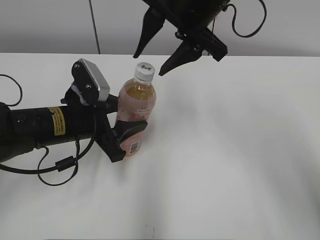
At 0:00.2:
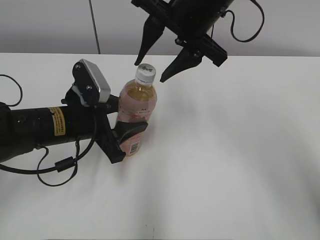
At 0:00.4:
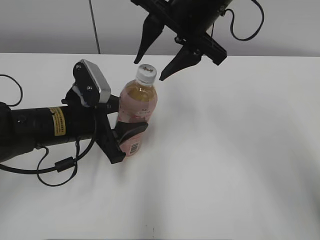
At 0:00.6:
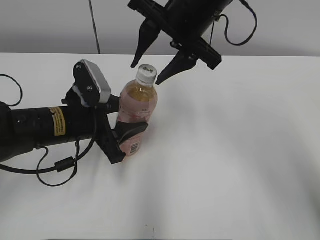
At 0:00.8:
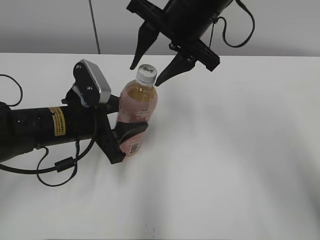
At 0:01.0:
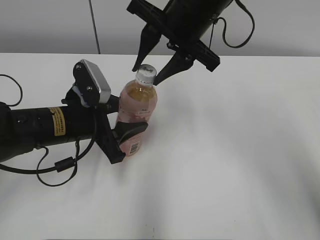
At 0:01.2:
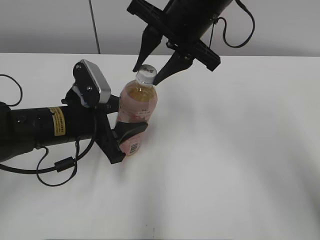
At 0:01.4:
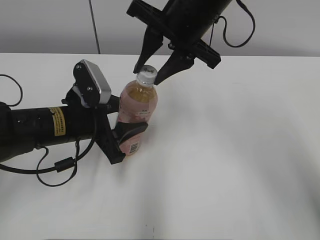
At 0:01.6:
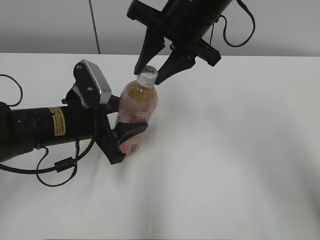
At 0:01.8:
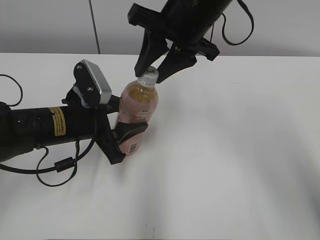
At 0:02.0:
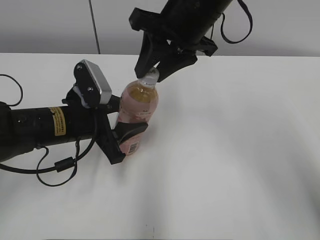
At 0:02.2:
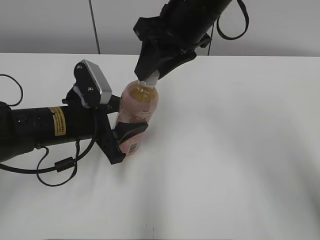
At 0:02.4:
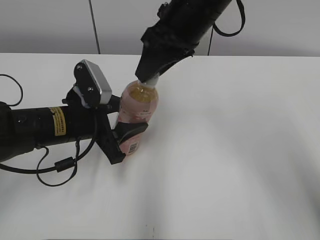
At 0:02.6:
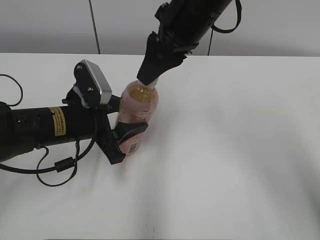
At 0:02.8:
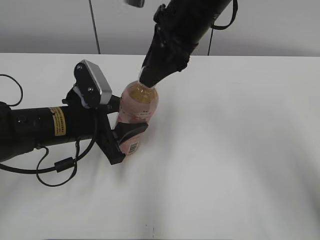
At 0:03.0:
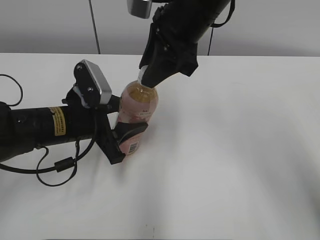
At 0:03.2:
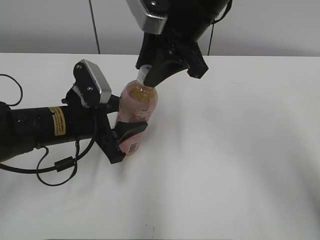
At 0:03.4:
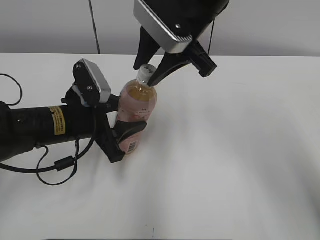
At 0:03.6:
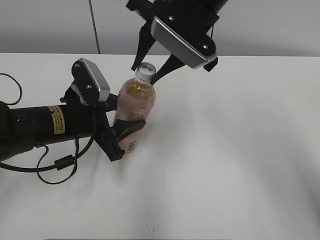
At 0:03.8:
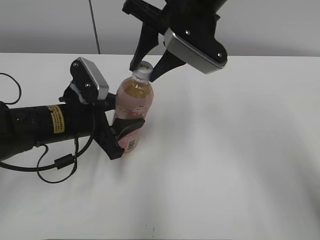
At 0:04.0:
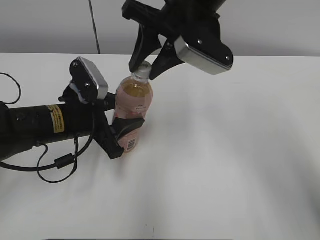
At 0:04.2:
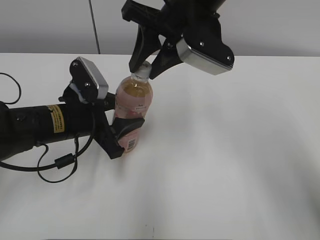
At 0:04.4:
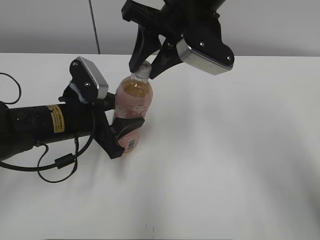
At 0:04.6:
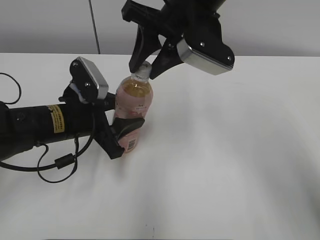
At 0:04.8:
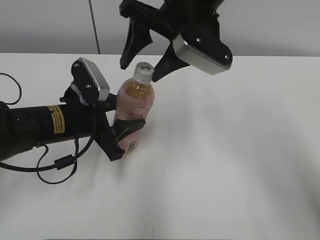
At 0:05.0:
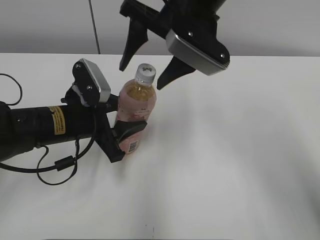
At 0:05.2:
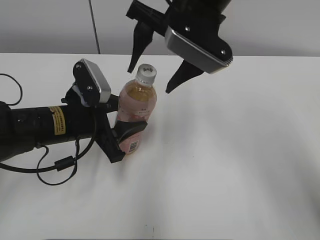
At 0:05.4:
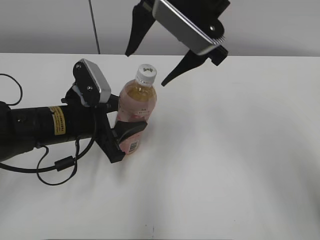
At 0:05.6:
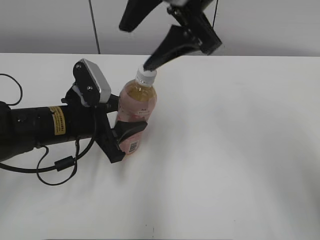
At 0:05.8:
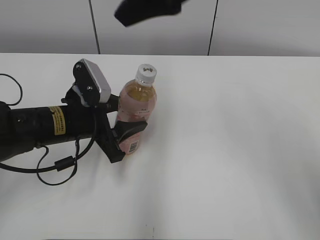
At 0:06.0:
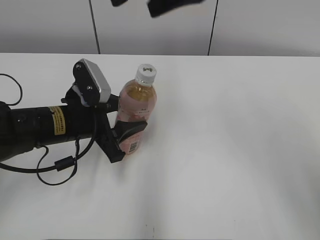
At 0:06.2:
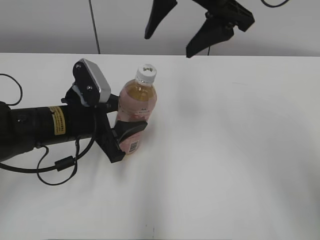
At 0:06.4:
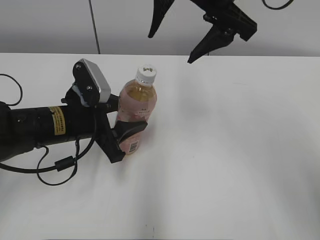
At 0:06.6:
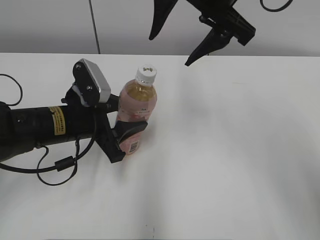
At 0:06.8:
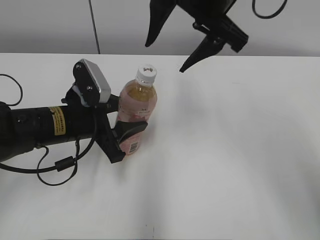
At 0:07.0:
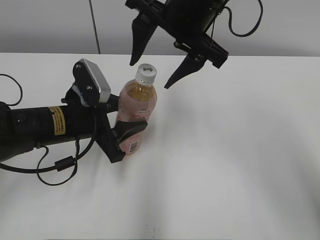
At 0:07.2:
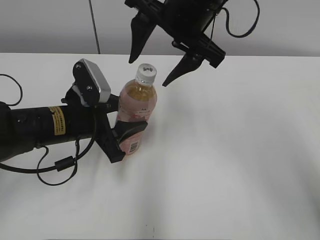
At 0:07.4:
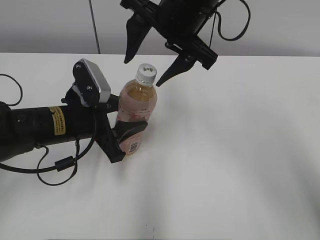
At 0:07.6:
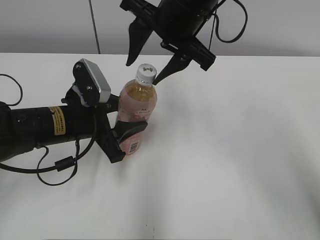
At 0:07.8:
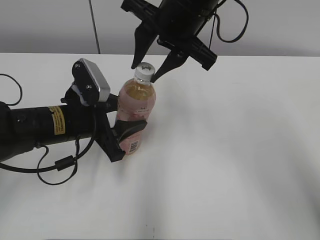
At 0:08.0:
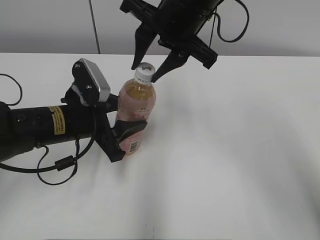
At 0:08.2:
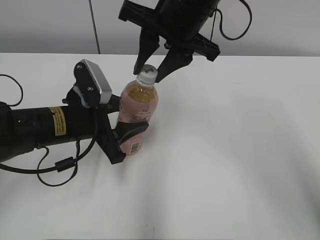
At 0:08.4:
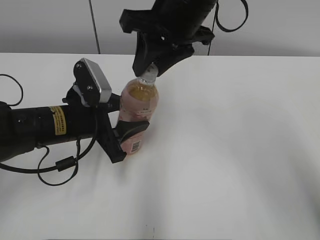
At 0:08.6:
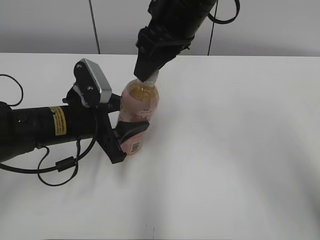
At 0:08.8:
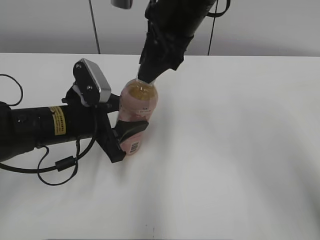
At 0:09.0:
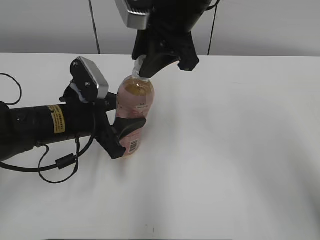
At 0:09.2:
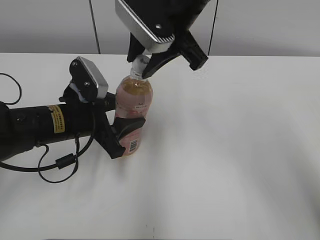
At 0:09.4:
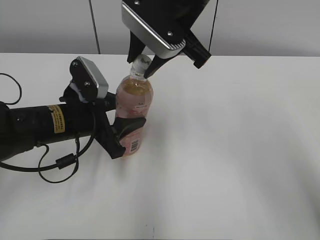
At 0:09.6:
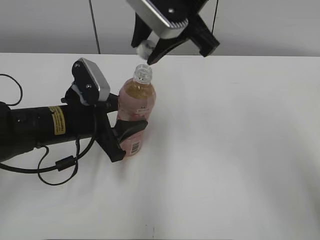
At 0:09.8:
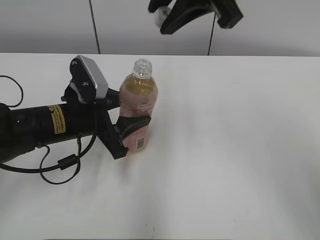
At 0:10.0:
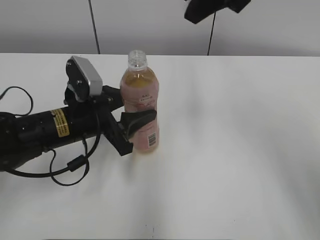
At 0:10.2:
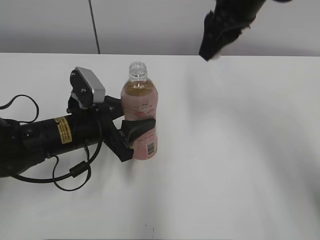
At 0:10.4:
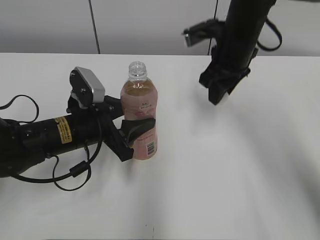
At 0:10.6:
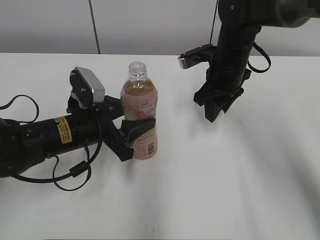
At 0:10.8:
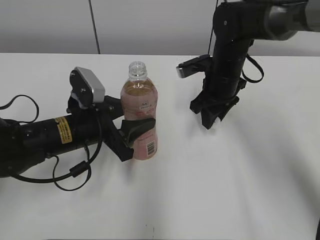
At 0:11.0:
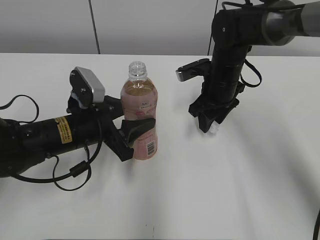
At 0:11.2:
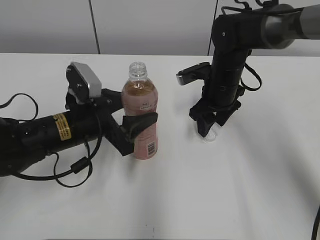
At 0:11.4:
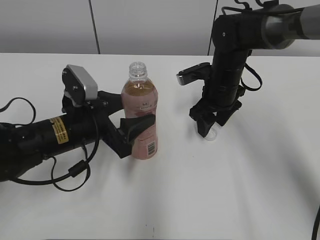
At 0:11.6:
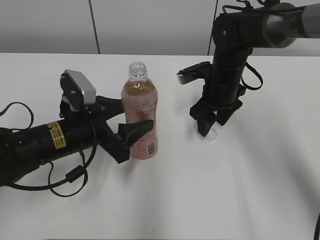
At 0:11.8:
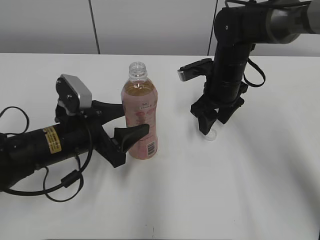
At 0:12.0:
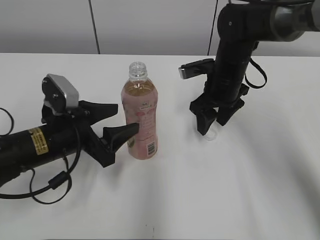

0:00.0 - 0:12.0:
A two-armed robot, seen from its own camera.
Step, 0:09.6 - 0:11.0: Place the bottle cap on the right.
Step, 0:11.2 - 0:11.4: Place the Peach Oolong Tea with the left hand.
0:00.0 - 0:01.6: The grippers make only small movements.
0:04.4 - 0:06.0: The right gripper goes about 10 cm upward, and opens its fingers.
0:06.0 - 0:07.6: The right gripper moves downward, approximately 10 cm, and closes.
0:07.6 - 0:09.0: The right gripper closes its fingers.
0:09.0 - 0:10.4: The right gripper goes some 15 cm to the right, downward and forward.
0:10.4 - 0:12.0: The right gripper moves downward, some 10 cm, and opens its fingers.

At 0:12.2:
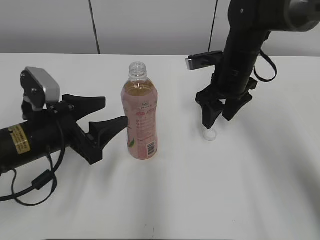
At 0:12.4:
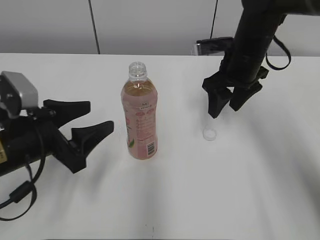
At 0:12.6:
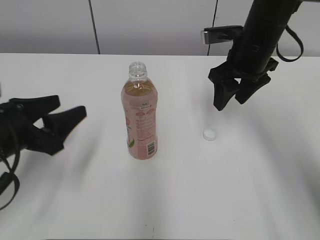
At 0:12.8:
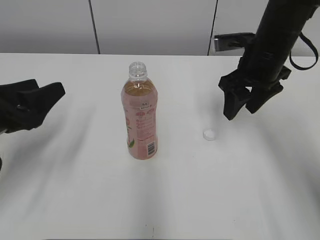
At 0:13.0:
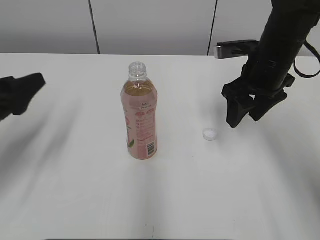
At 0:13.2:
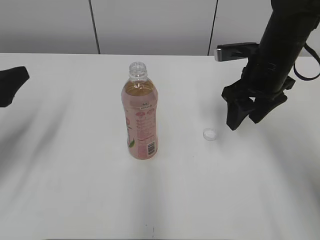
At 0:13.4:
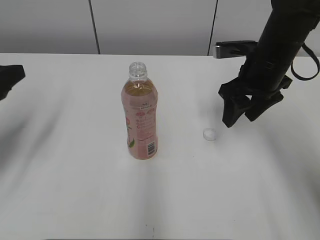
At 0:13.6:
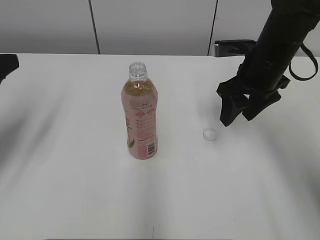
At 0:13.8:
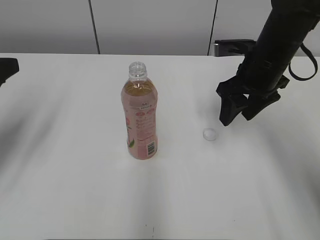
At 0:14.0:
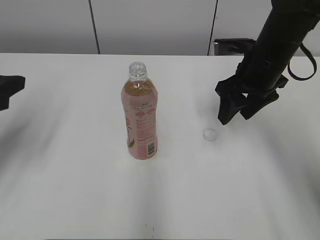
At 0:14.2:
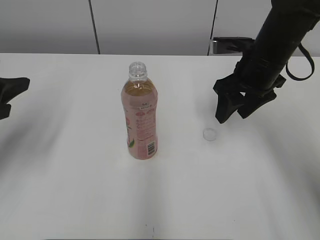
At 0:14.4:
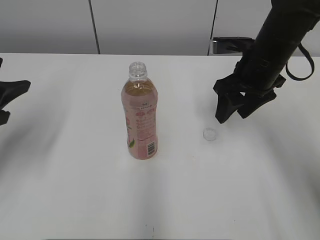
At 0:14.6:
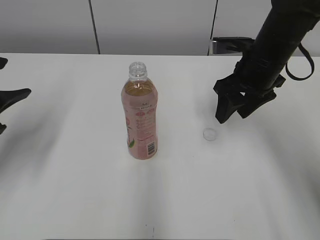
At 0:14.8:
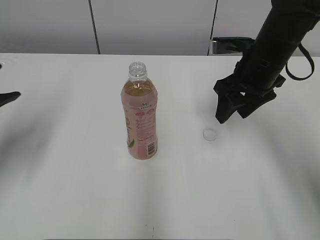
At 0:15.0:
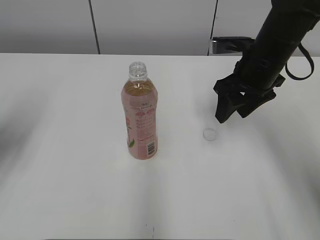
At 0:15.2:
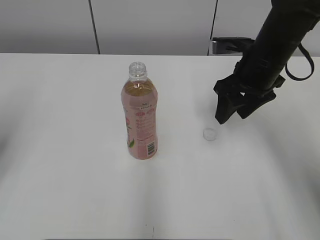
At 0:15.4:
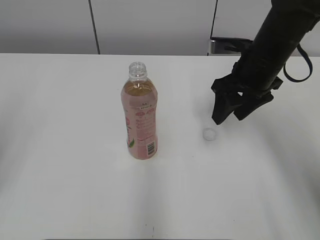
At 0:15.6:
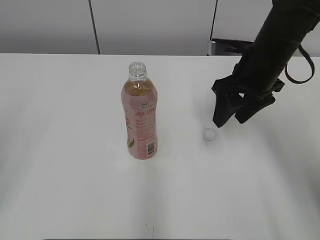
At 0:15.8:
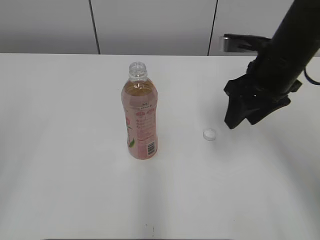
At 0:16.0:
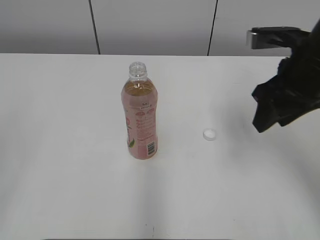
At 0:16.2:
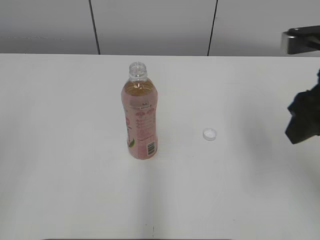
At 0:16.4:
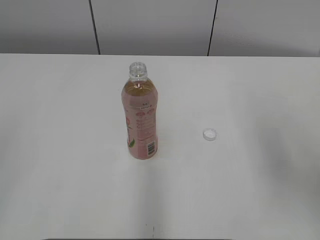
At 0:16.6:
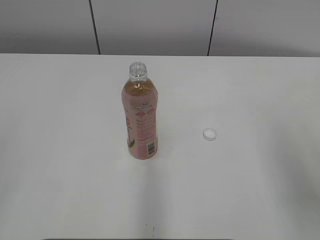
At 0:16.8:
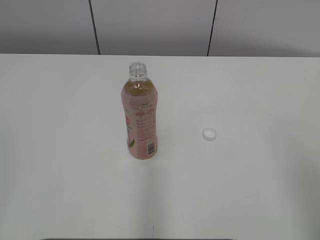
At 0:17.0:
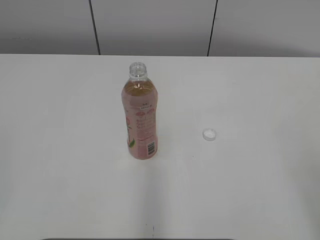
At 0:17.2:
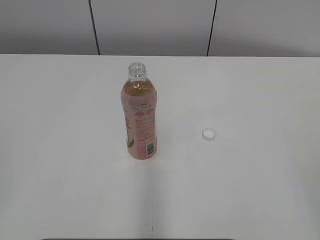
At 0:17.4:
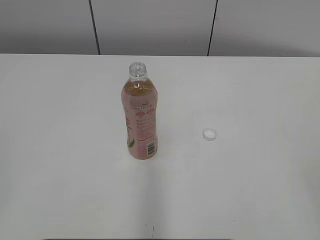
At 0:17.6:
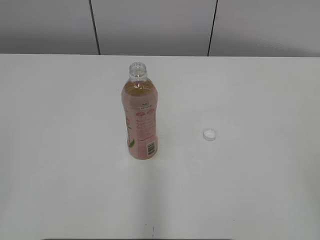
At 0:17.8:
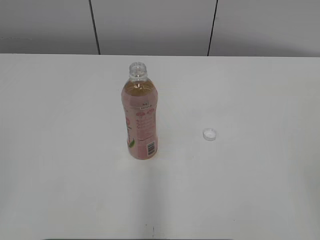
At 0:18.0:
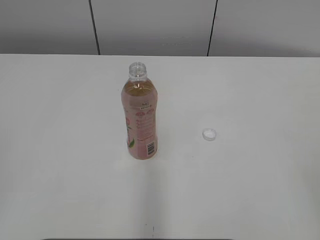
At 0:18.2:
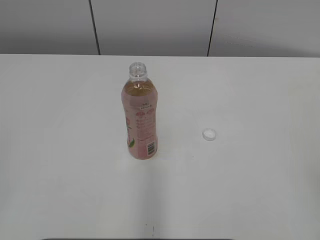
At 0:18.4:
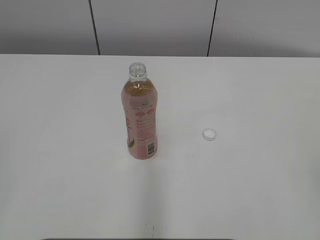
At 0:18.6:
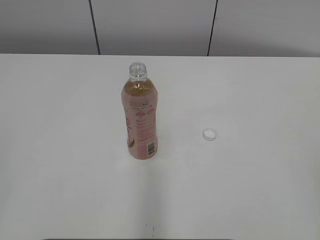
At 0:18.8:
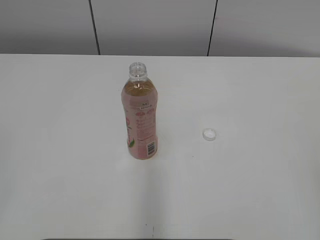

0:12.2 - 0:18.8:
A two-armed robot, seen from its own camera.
0:12.2 - 0:13.8: The right gripper changes place by approximately 5 cm. The left gripper heads to the left and upward, covering about 15 cm.
0:13.8 - 0:15.4: The left gripper is displaced backward by about 5 cm, and closes.
0:15.4 - 0:17.2: The left gripper is displaced backward by roughly 20 cm; the right gripper shifts about 35 cm backward.
